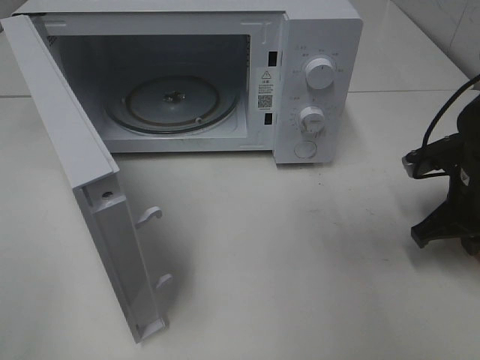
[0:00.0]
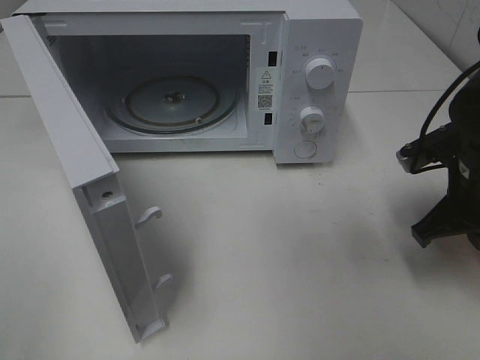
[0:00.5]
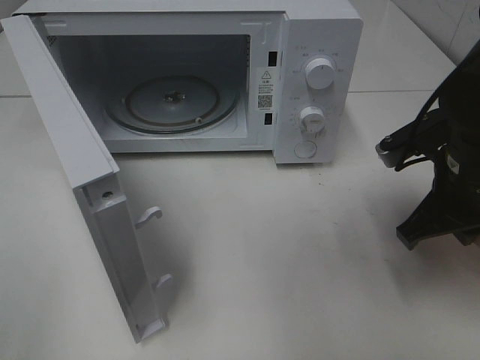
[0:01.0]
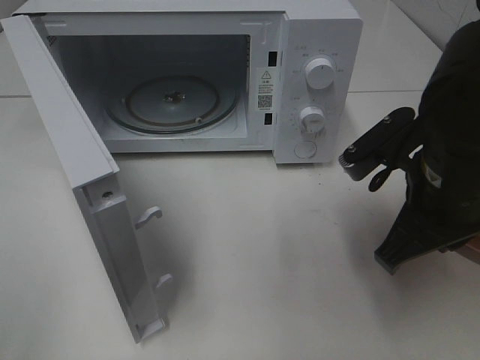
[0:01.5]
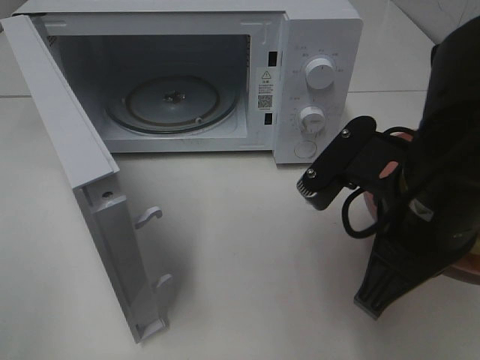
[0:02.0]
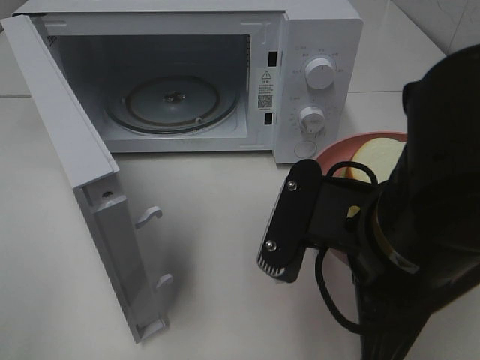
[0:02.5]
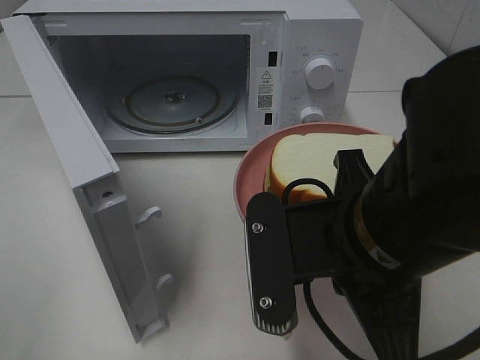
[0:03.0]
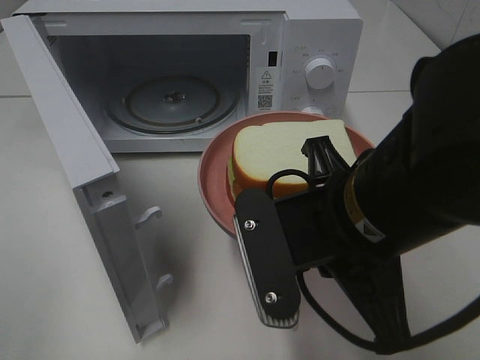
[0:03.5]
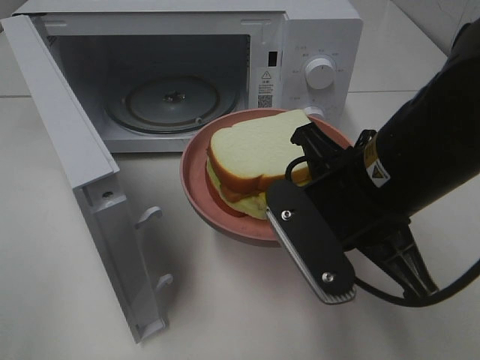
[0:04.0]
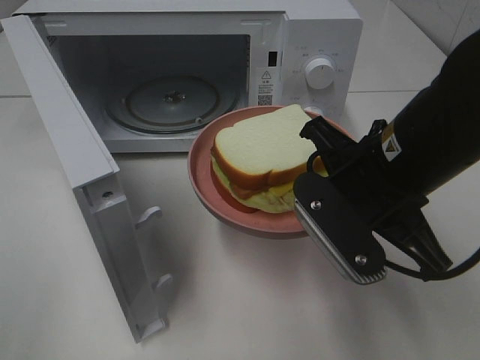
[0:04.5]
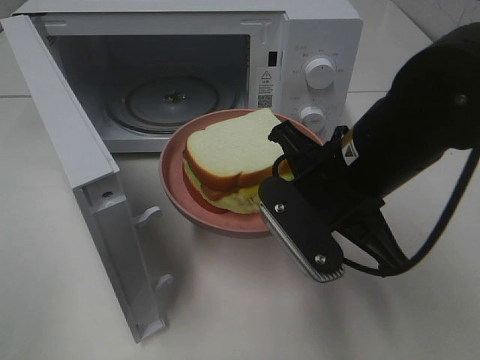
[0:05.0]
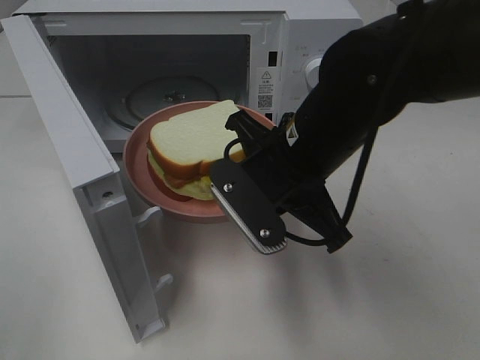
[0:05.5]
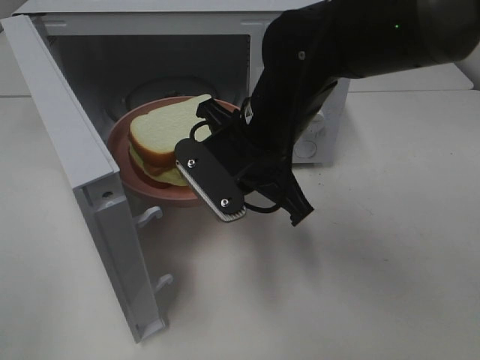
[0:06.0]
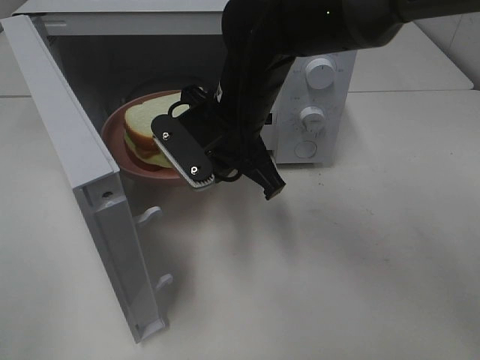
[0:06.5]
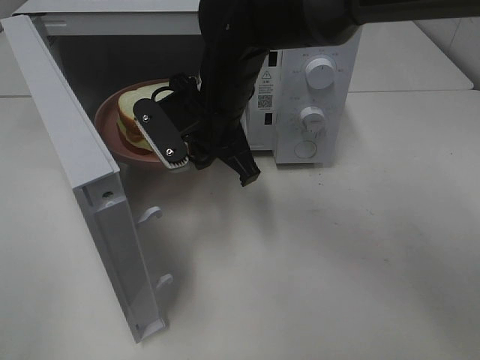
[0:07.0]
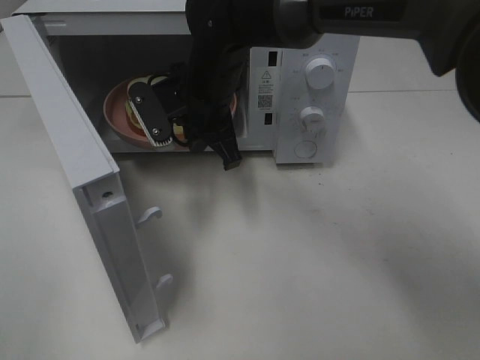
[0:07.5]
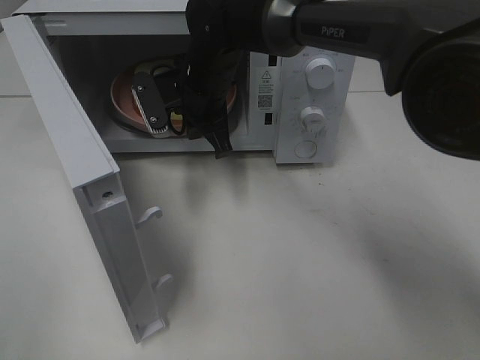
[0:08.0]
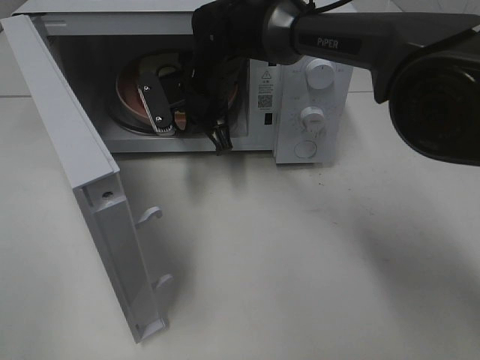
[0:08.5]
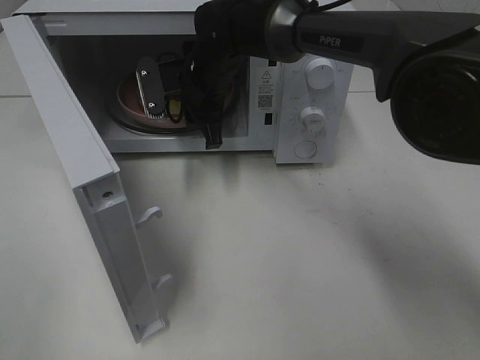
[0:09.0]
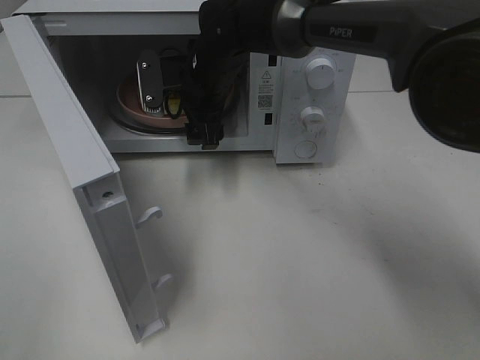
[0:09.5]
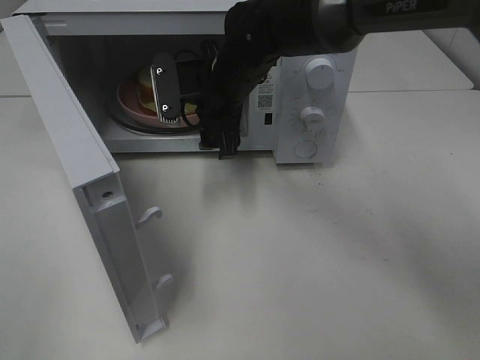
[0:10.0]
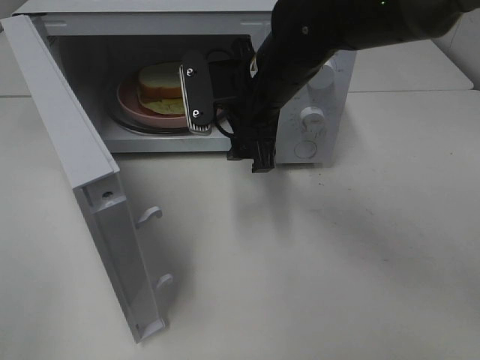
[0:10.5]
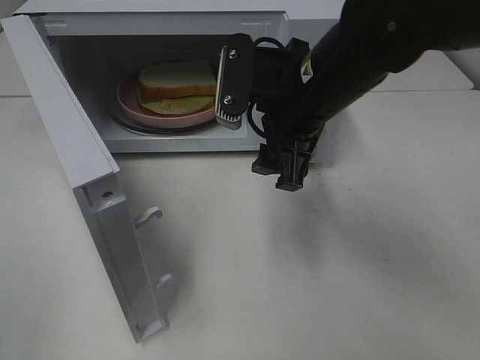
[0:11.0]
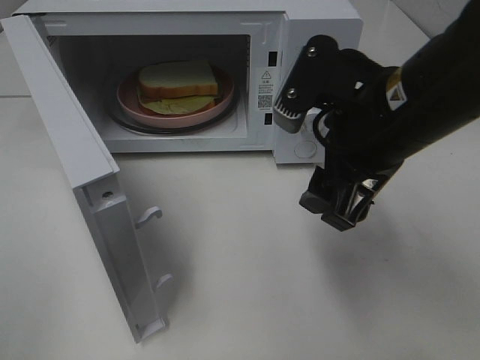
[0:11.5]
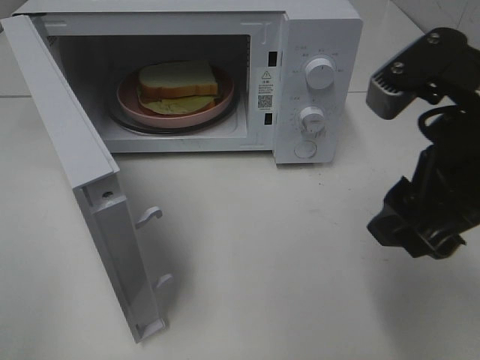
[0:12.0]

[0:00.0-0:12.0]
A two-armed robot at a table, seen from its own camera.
Task of the whole recording: Heat Sandwich.
Step, 0.0 to 10.0 s: Right hand: place the plate in the microwave.
0.0 to 2.0 s: The right gripper is displaced to the left, backward and upward by approximately 20 cm.
4.0 to 6.0 s: The right gripper shifts some 10 cm forward and to the left.
6.0 to 8.0 s: The right gripper is displaced forward and to the left by some 15 cm.
8.0 to 10.0 s: The right gripper opens its fingers.
10.0 to 12.0 s: The right gripper travels backward, to the right and upward by some 30 cm.

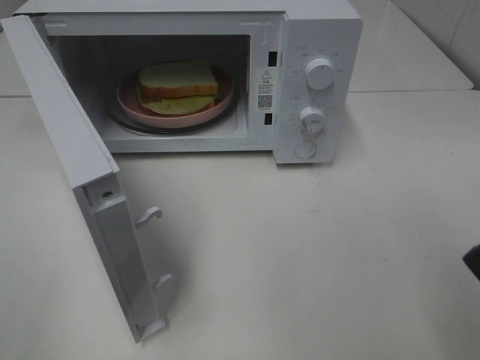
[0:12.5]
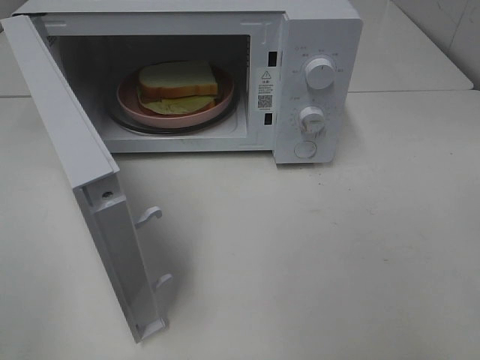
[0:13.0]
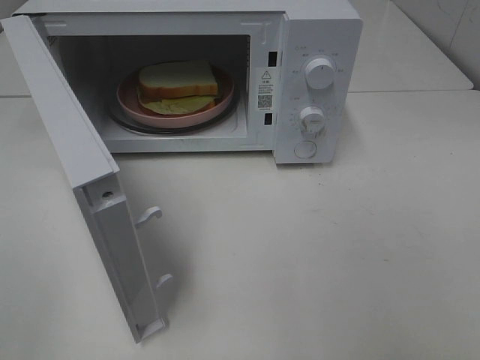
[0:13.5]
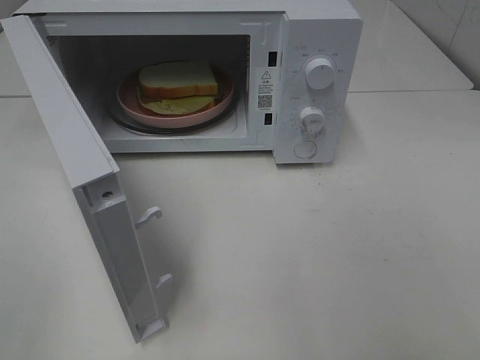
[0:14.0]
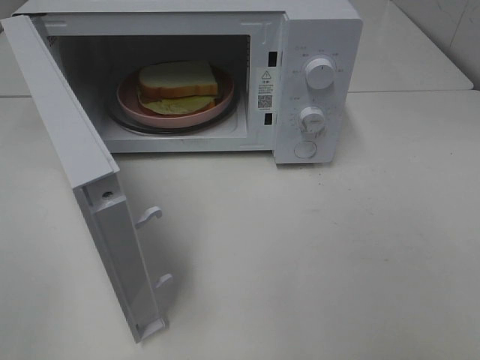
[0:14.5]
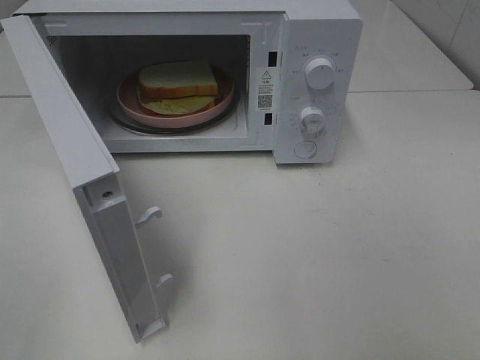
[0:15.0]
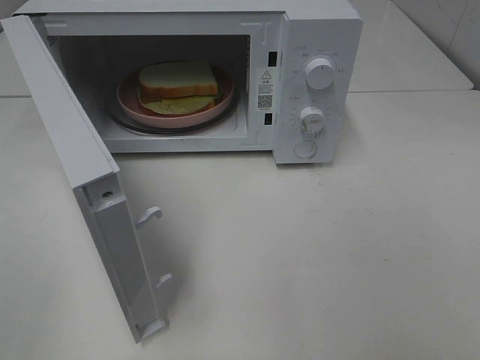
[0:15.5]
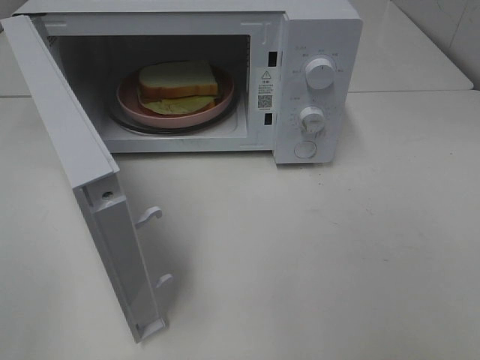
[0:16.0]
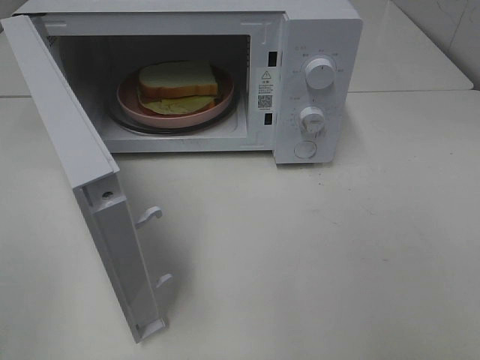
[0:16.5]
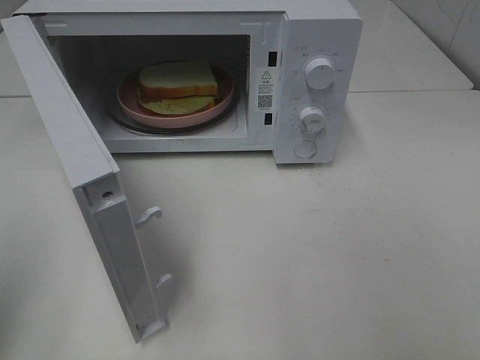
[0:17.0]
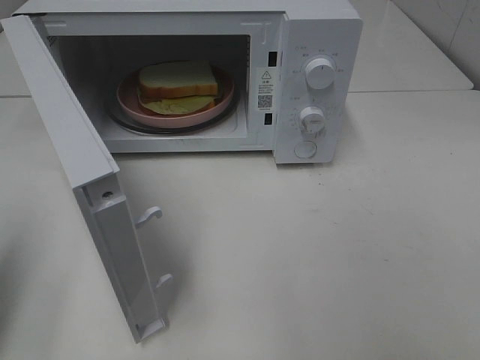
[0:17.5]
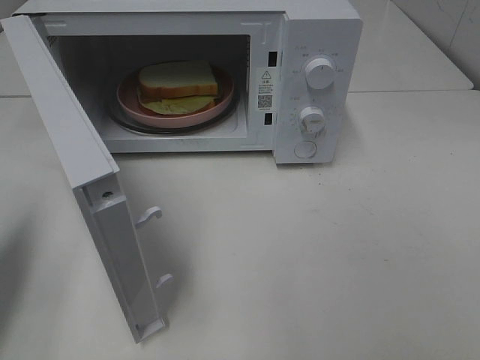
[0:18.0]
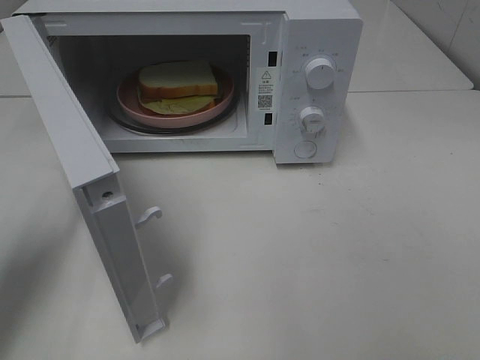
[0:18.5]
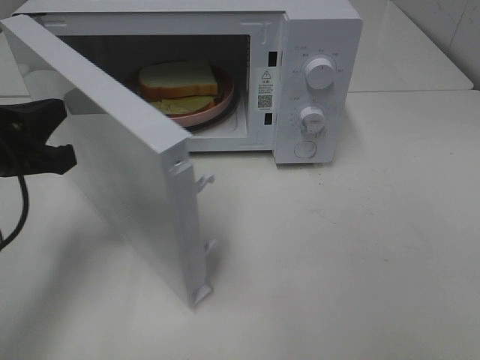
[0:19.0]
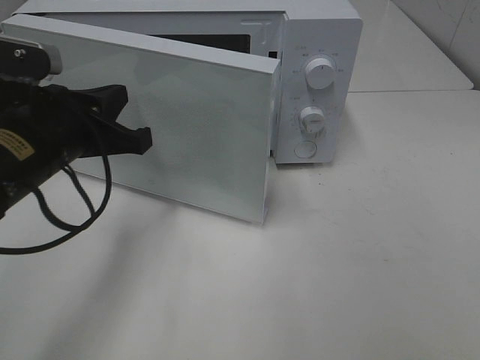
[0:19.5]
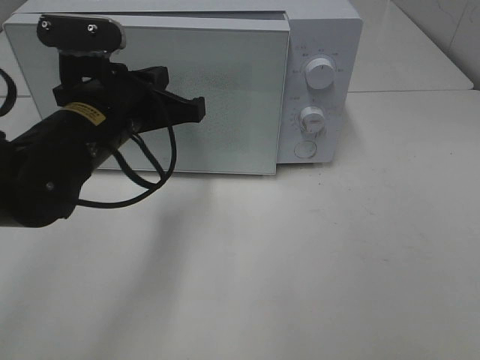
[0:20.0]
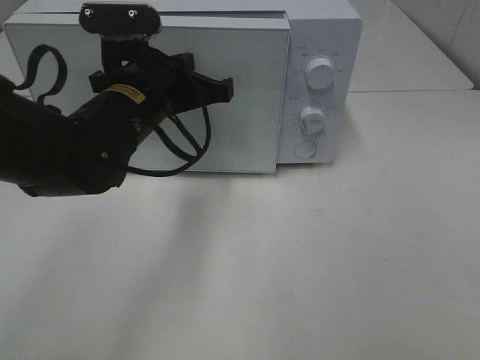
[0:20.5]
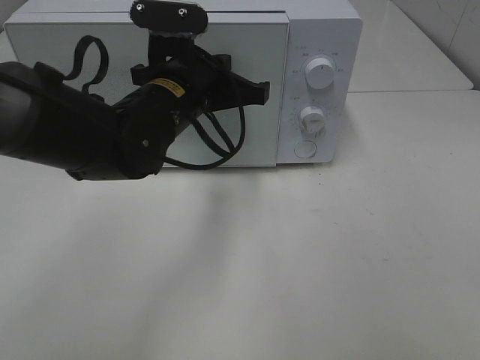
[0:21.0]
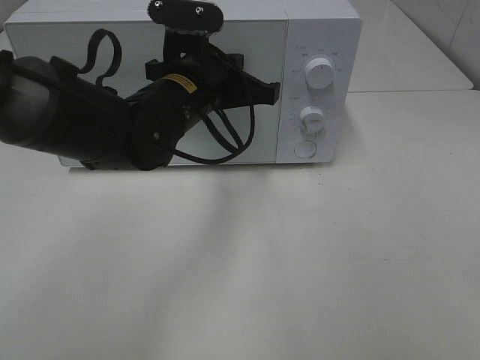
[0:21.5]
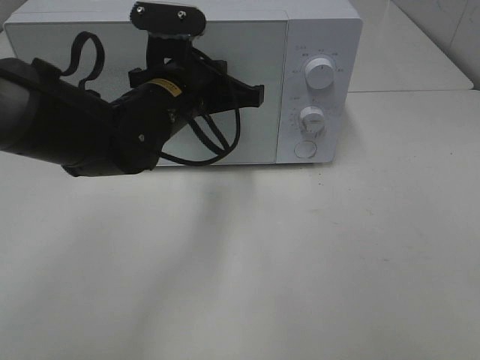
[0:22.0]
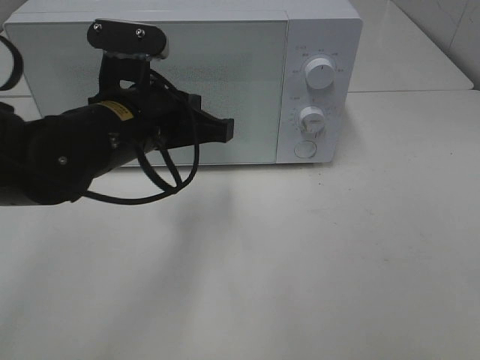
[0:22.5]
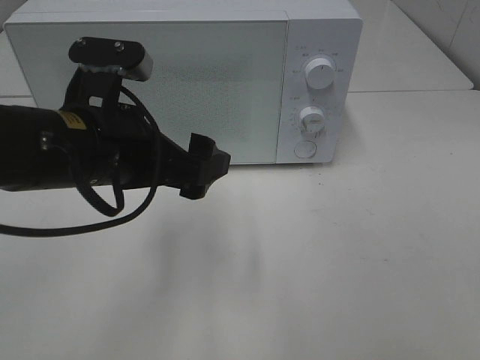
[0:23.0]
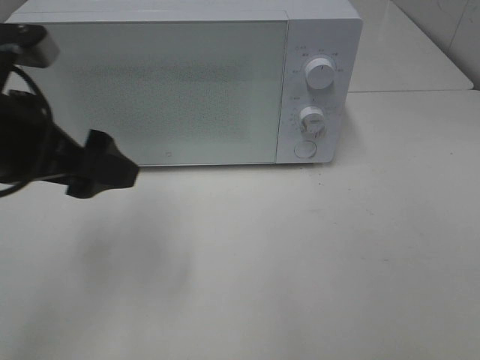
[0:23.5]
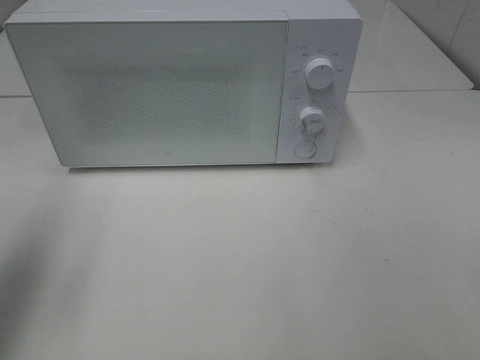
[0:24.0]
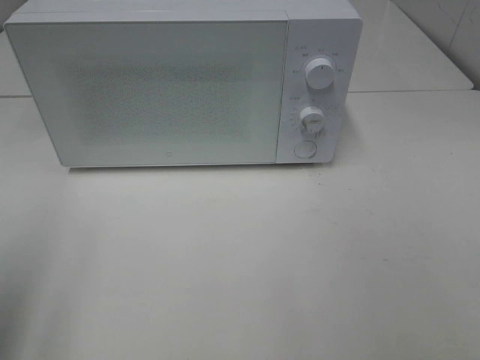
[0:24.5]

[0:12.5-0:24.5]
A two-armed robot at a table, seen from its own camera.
Task of the whole recording: Heat Sandwich.
Step, 12.5 to 21.5 s: Left hand: close the microwave door.
12.5 to 14.5 s: The right gripper heads backward and to the right, covering about 15 cm.
16.5 to 18.5 s: The left gripper travels forward and downward by some 20 cm, and closes its fingers.
18.5 to 20.5 s: The left gripper is displaced to the right and forward by some 25 cm.
20.5 to 22.5 s: The grippers move only a little.
22.5 to 24.5 s: The left gripper travels to the left, backward and upward by roughly 30 cm, and opens its fingers.

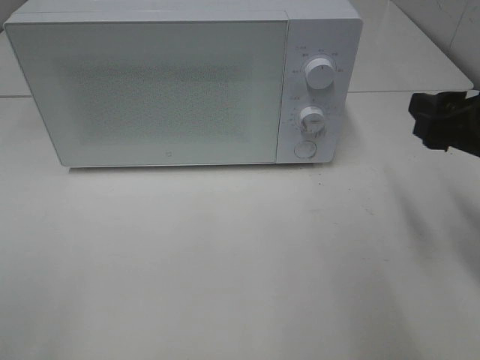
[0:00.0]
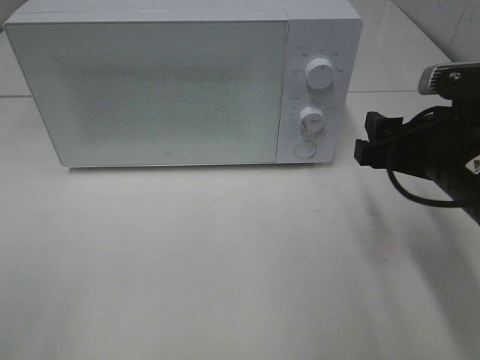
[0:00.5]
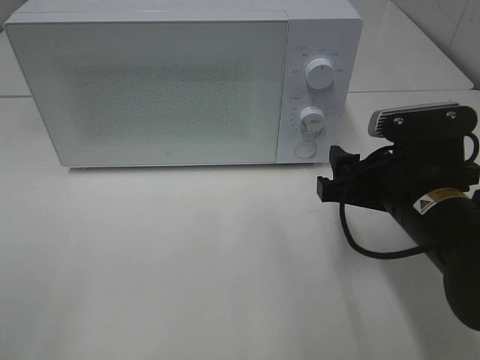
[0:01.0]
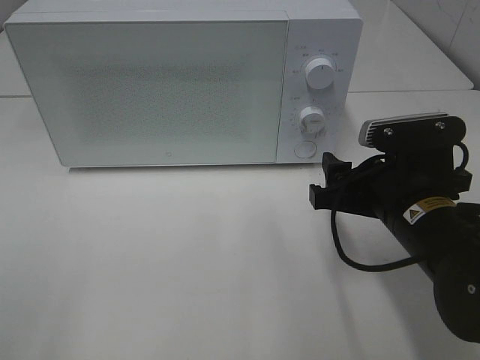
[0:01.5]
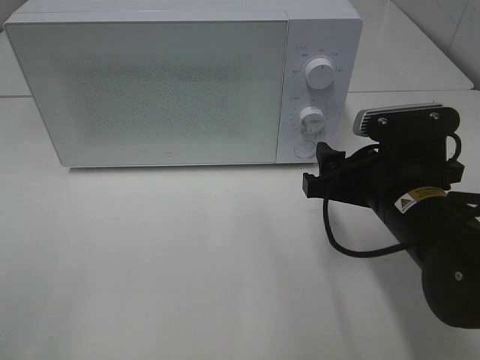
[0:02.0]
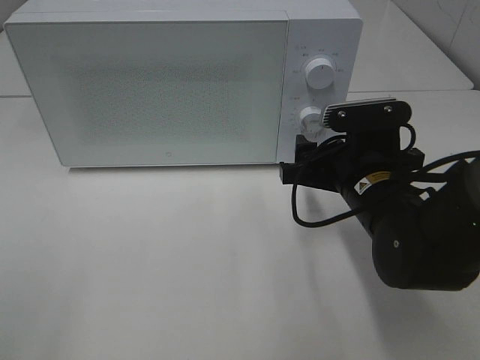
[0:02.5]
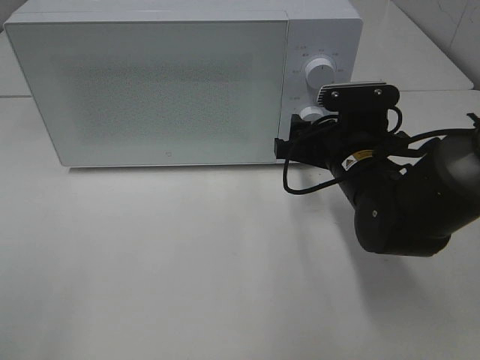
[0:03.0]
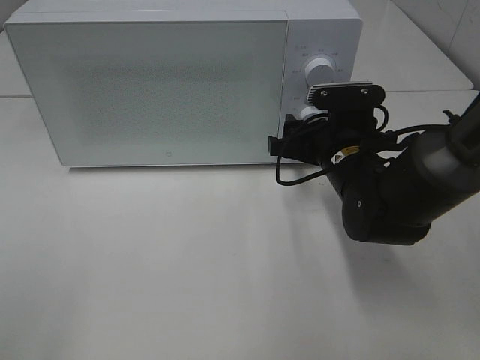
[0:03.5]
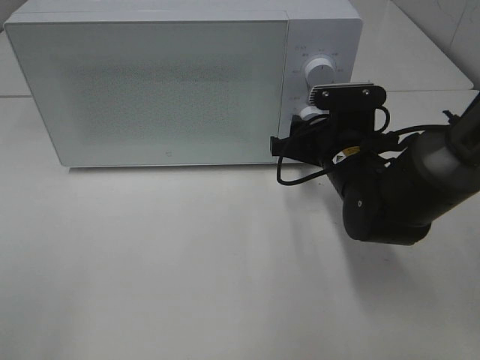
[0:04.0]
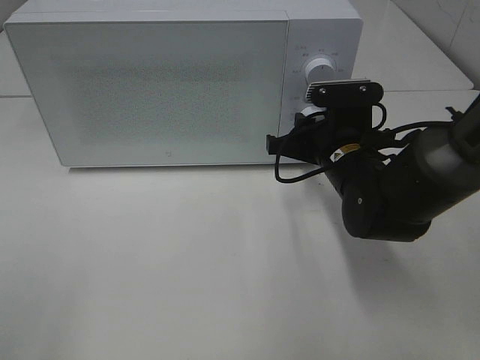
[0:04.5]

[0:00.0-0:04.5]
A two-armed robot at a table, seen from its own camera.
Task of the whole recording: Heat Sandwich.
0.0 to 2.0 s: The right gripper shifts about 10 cm to the left and downward.
2.0 to 4.5 s: The right gripper heads forward, covering about 10 cm, and closes up.
